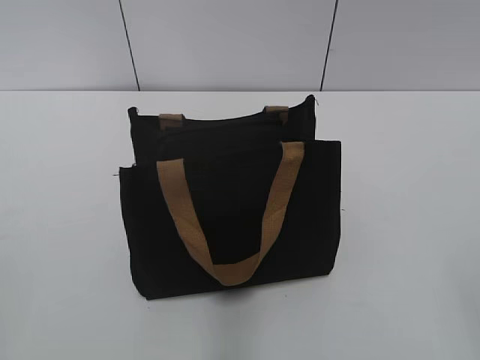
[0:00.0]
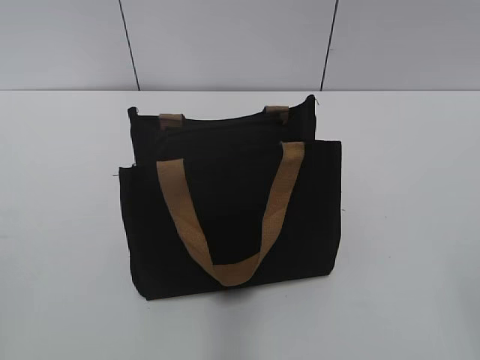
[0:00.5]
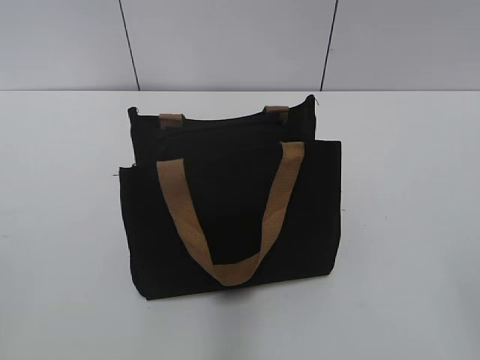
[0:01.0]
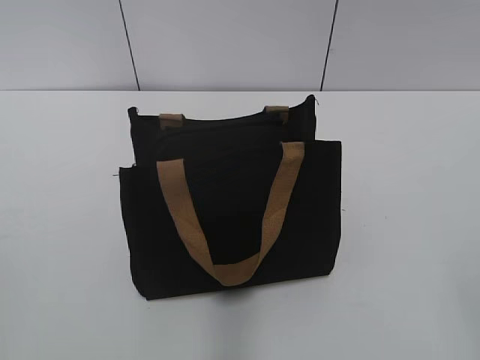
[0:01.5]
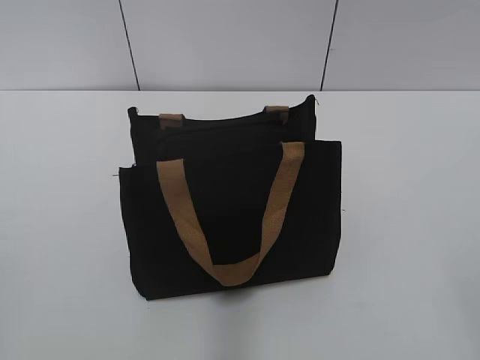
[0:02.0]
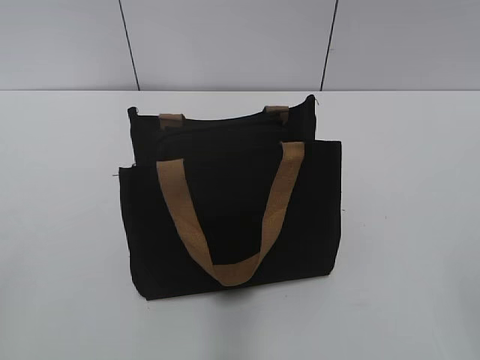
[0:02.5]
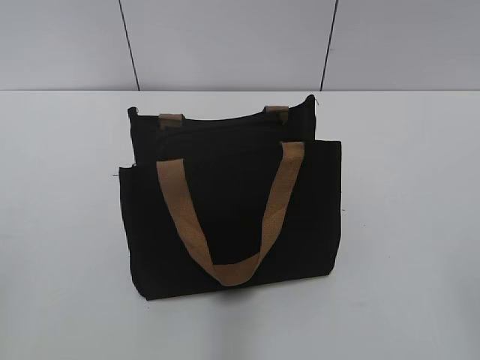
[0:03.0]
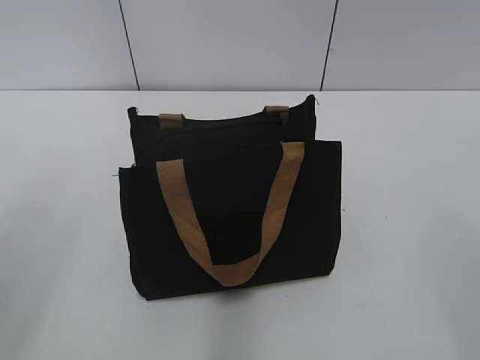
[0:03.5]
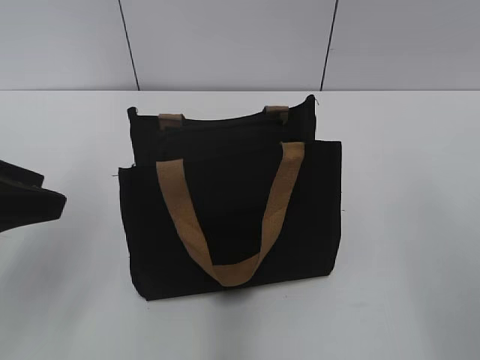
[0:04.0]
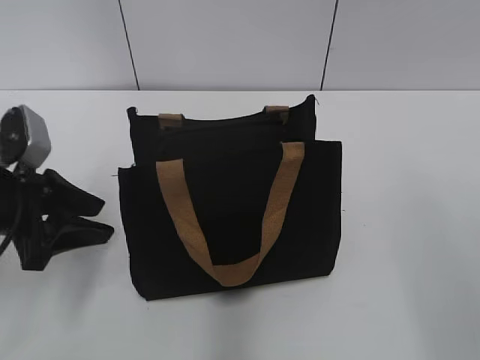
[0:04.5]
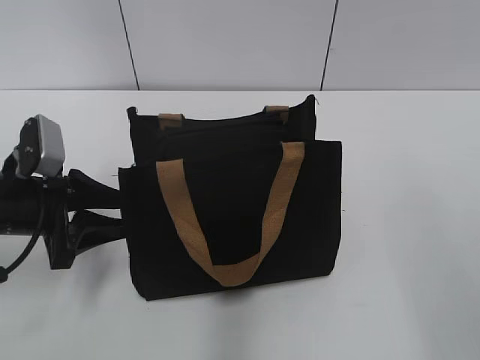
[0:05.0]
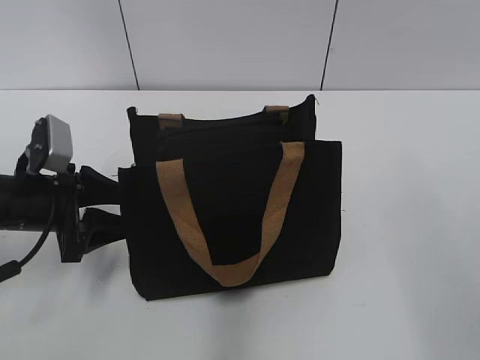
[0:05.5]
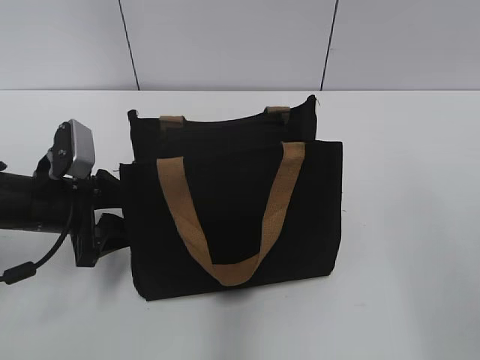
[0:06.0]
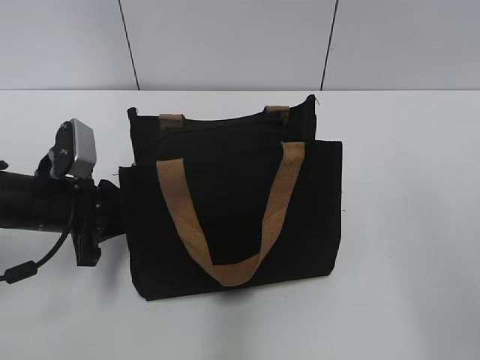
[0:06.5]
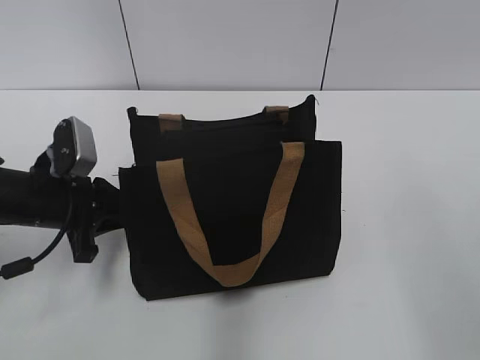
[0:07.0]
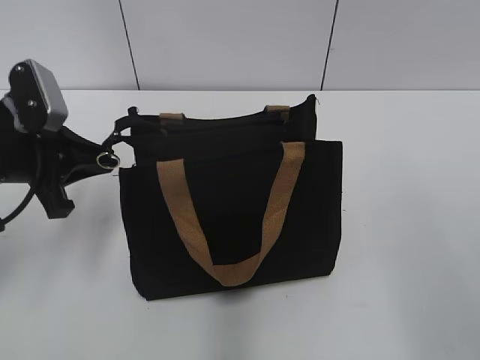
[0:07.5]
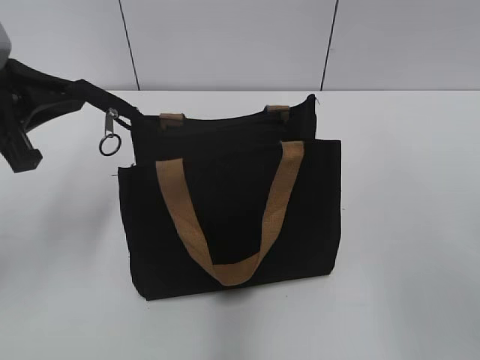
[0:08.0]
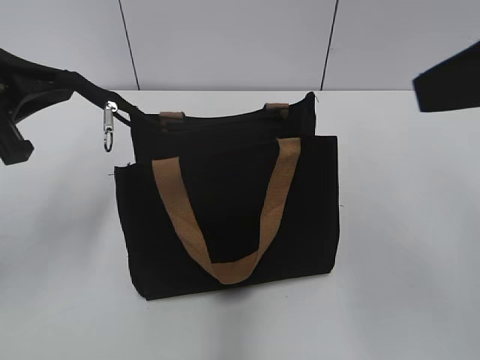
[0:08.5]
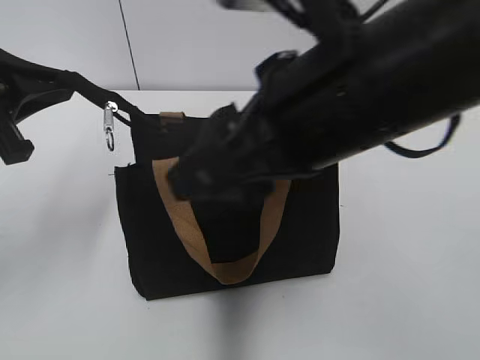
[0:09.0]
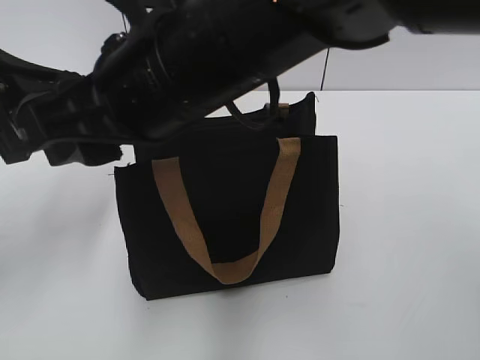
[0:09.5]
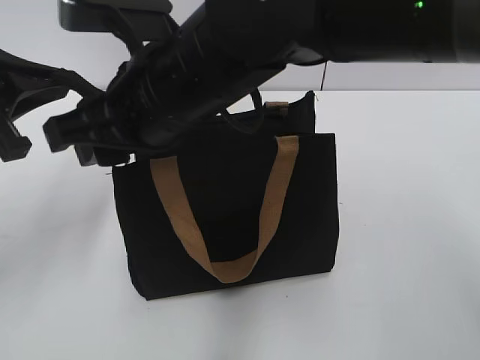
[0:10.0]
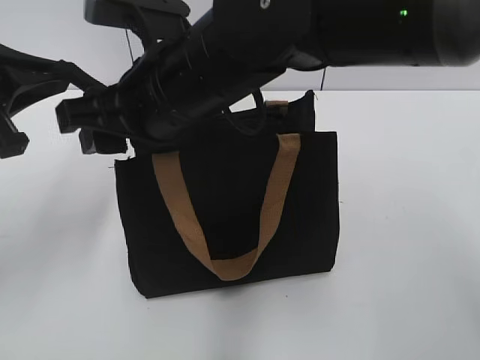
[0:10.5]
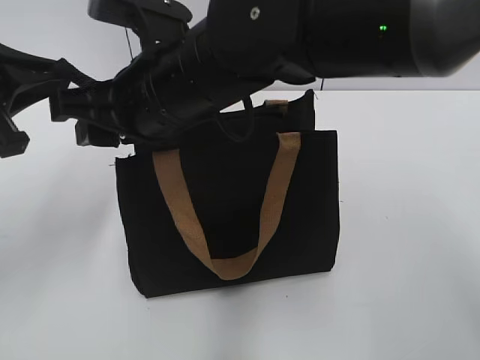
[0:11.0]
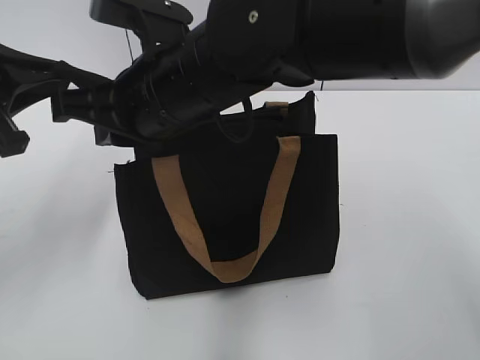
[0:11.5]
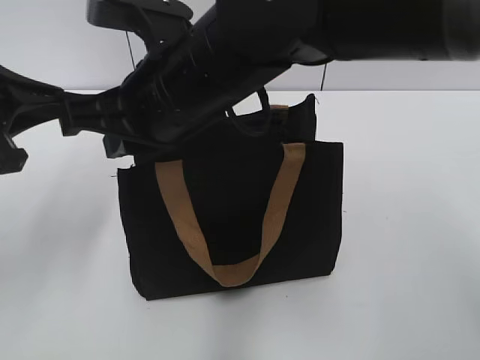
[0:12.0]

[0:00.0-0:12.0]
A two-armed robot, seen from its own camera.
0:02.0 to 0:04.0: The left gripper moves forward, approximately 20 cm, and opens.
0:04.0 to 0:06.0: The left gripper moves downward and forward, about 20 cm.
0:06.0 to 0:08.0: The left gripper moves upward, some 15 cm, and closes up.
0:08.0 to 0:10.0: The right gripper goes approximately 30 cm to the left and forward.
0:10.0 to 0:12.0: The right gripper closes up.

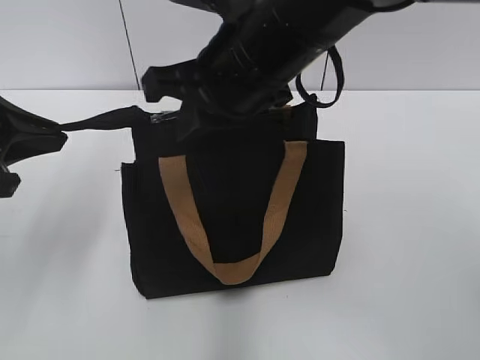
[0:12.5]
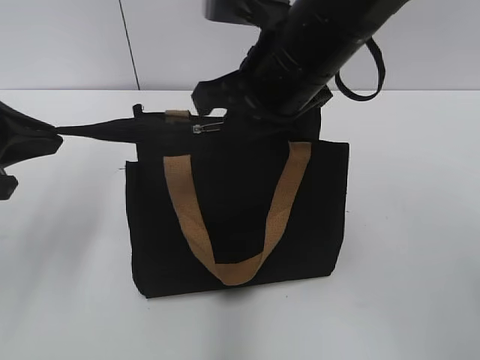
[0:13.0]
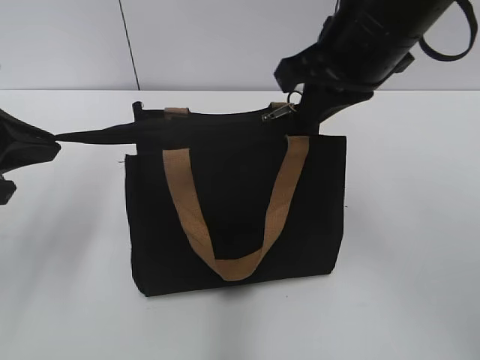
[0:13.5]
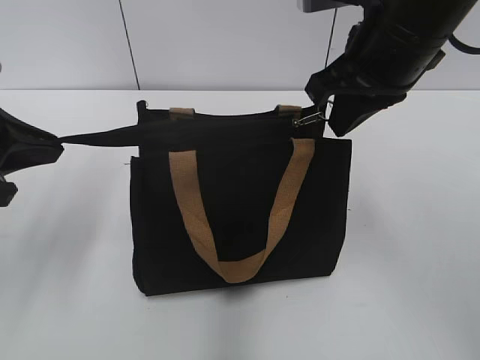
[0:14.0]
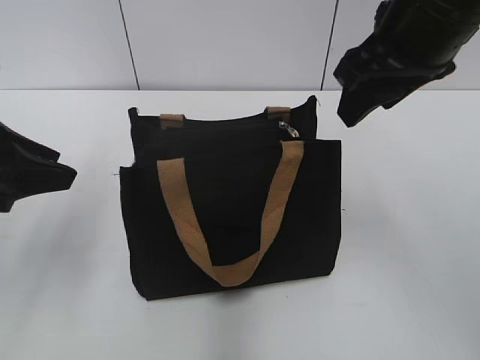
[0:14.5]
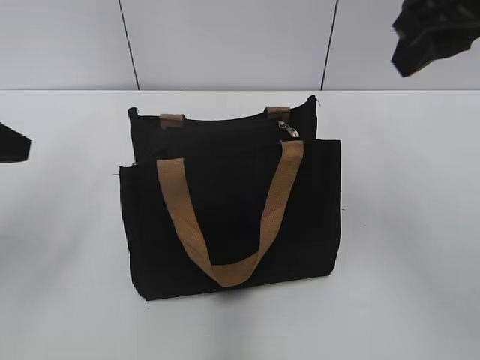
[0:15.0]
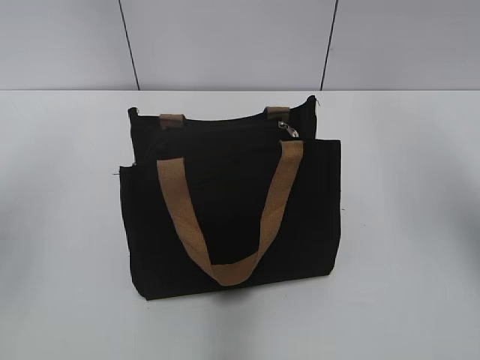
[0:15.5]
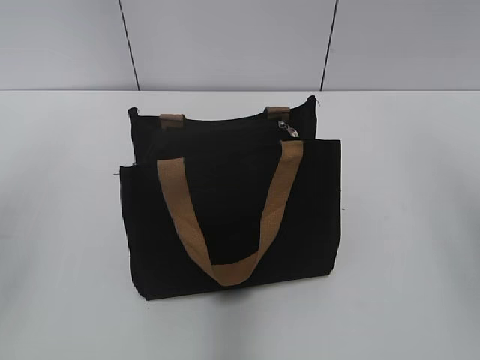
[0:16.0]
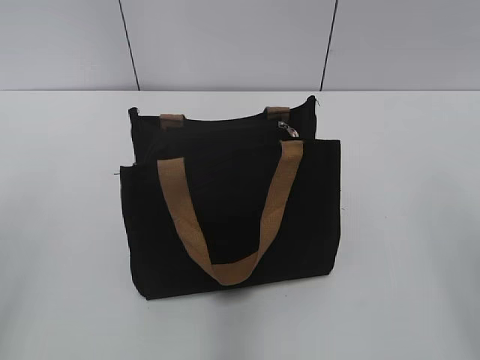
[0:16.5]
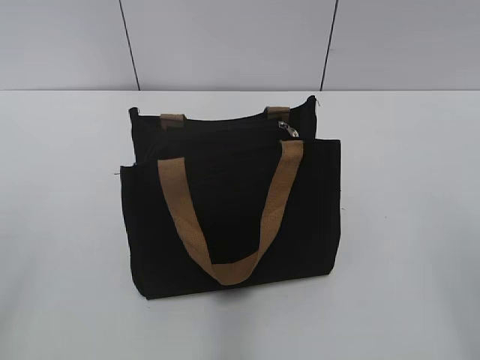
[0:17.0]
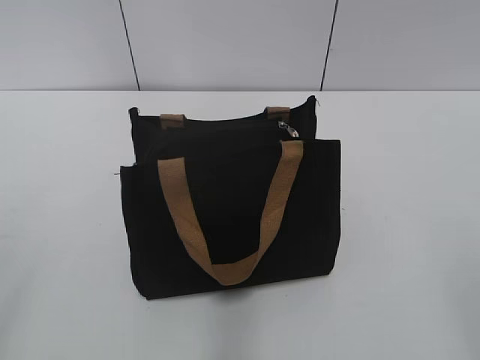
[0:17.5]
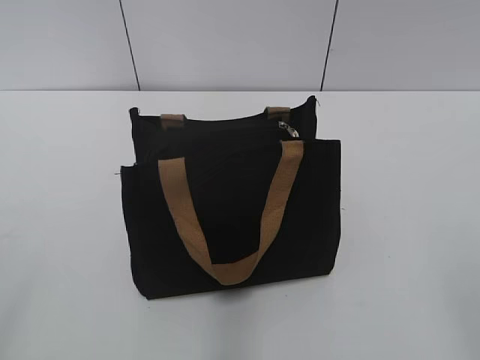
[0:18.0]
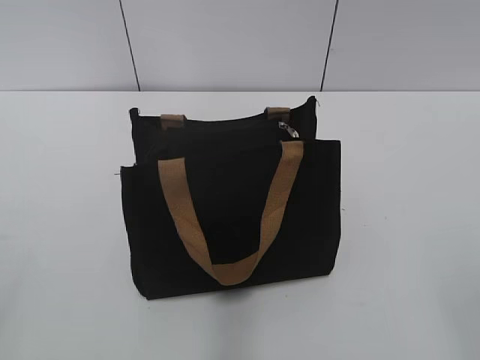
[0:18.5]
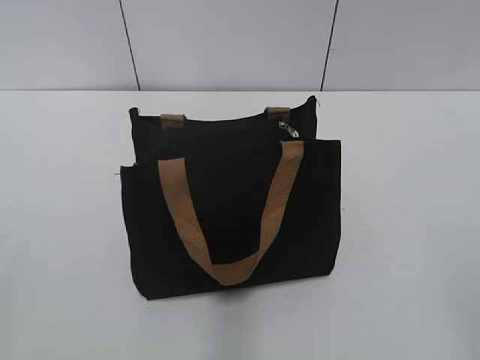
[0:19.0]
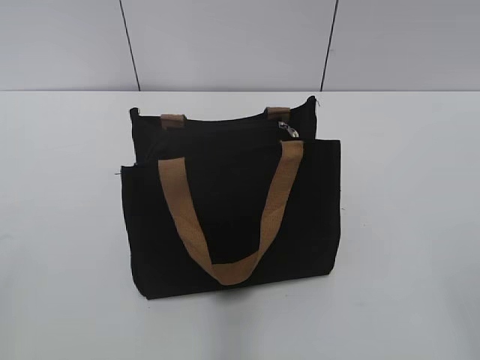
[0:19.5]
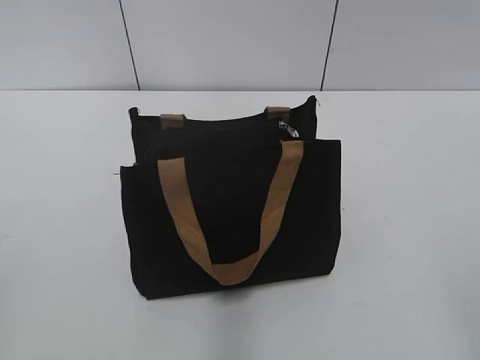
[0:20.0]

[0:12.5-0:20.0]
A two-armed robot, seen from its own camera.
0:12.5 to 0:14.5: The left gripper opens, while the right gripper travels to the right by some 10 cm, and opens its fingers.
0:14.5 to 0:16.5: The right gripper travels backward and to the right by about 25 cm, while the left gripper heads backward and upward, covering about 15 cm, and opens.

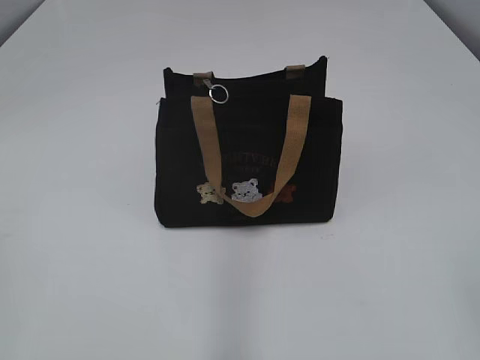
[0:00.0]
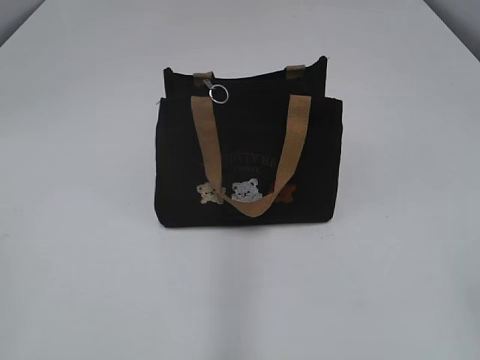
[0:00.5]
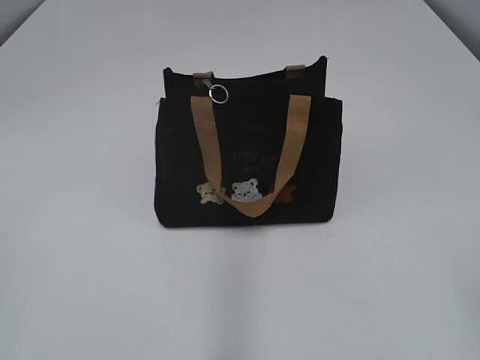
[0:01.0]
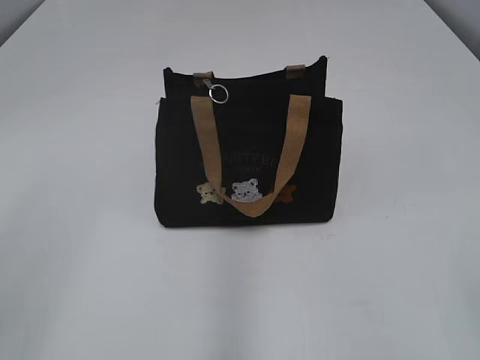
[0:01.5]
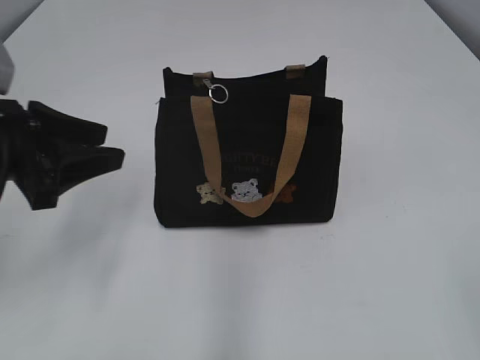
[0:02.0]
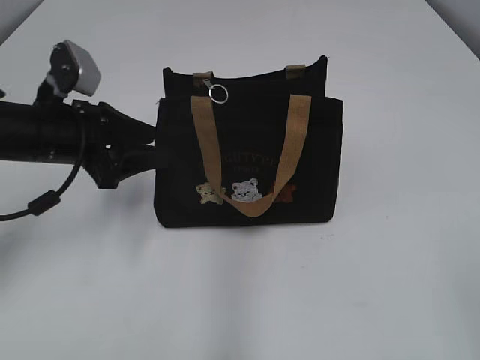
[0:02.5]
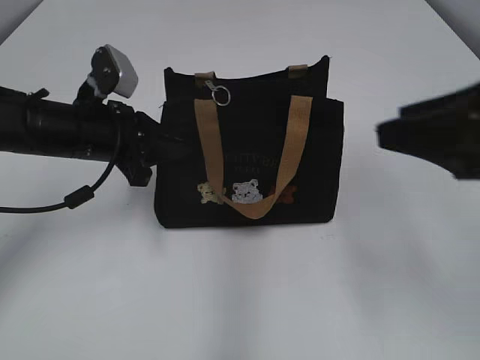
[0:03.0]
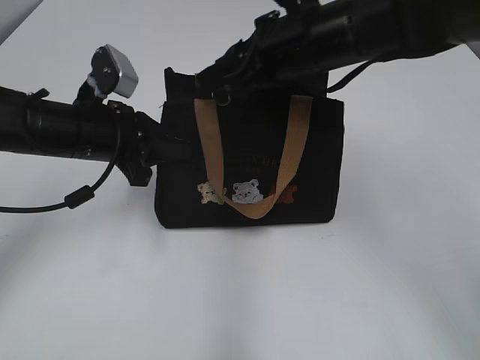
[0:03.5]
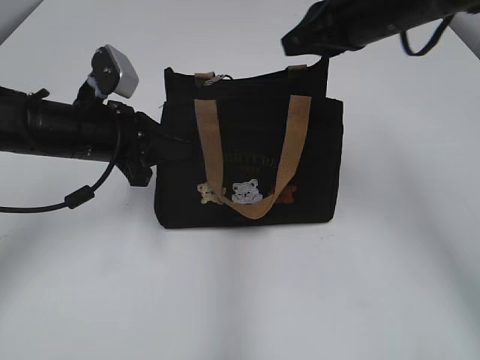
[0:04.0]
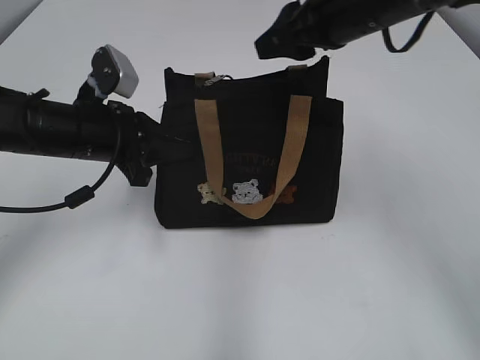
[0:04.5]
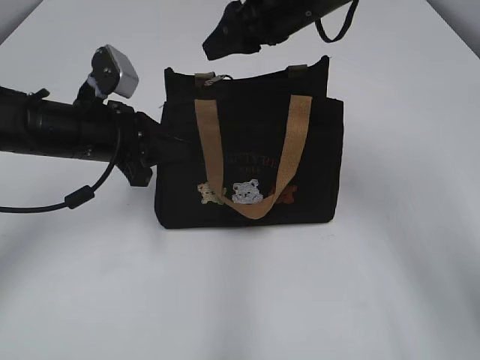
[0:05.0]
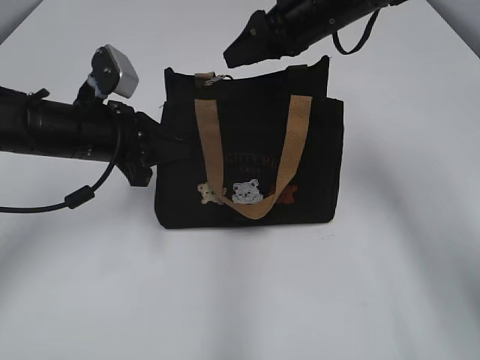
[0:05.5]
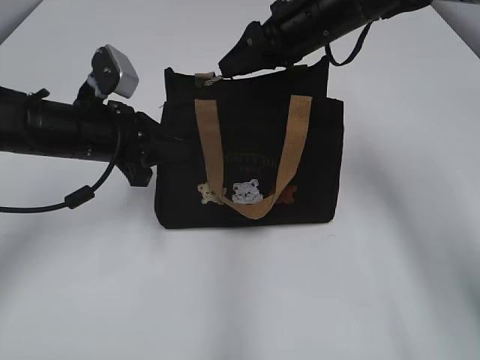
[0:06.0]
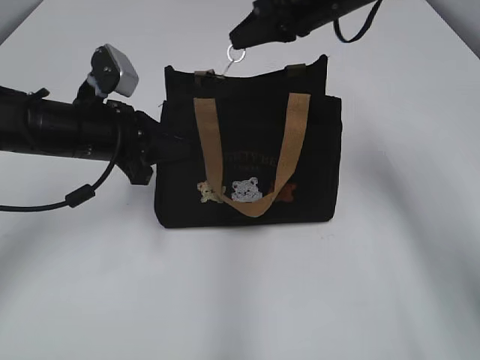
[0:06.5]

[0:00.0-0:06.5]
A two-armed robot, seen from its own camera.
0:02.0 to 0:04.5: The left gripper travels forward, to the right and downward by approximately 15 cm, and closes up. Meanwhile the right gripper travels forward by roughly 35 cm, and closes, then reopens.
0:04.5 to 0:06.5: The right gripper travels forward by approximately 10 cm, and closes.
